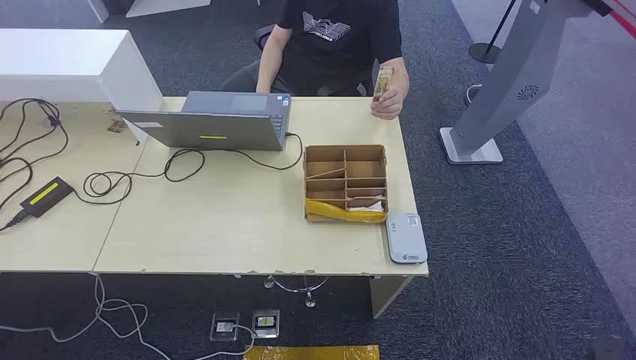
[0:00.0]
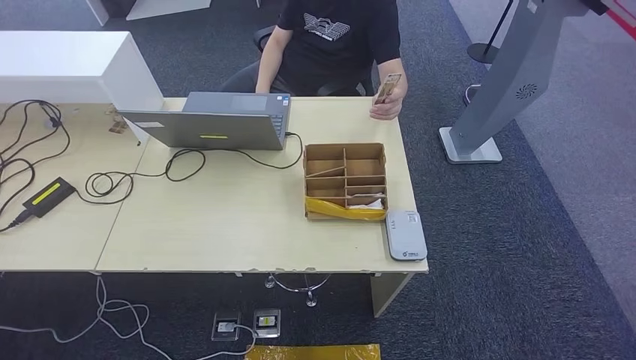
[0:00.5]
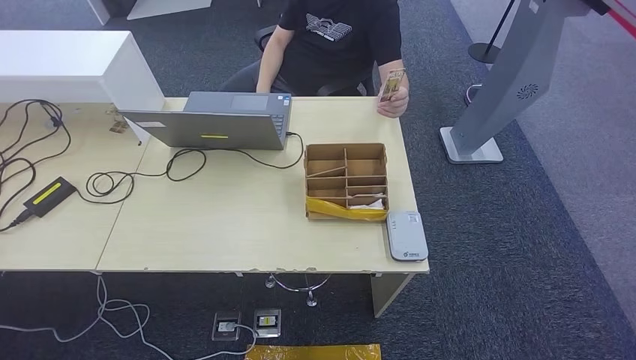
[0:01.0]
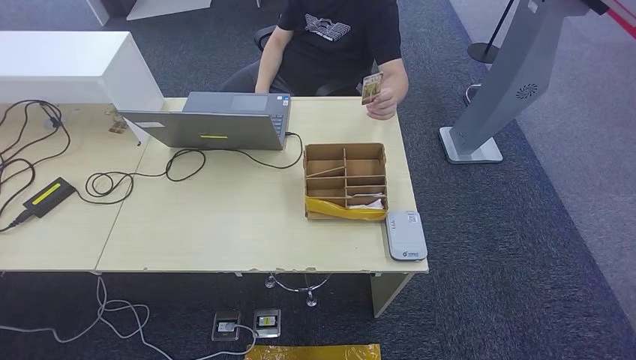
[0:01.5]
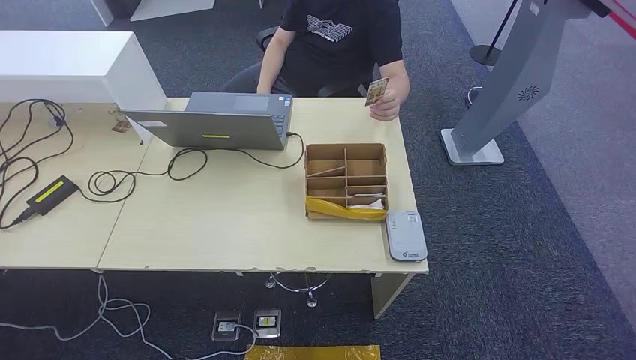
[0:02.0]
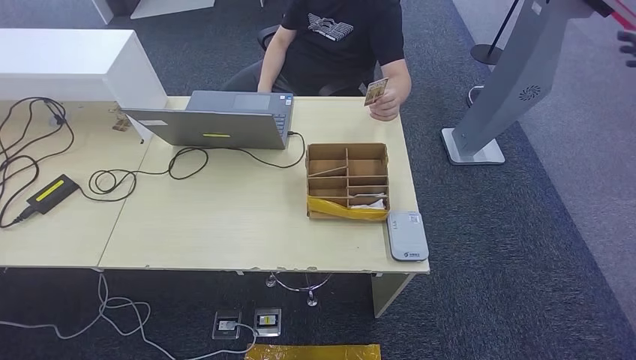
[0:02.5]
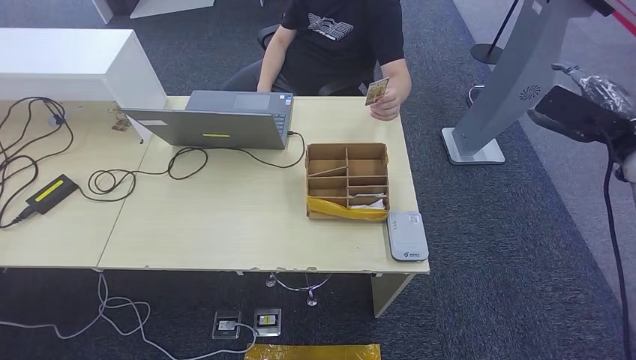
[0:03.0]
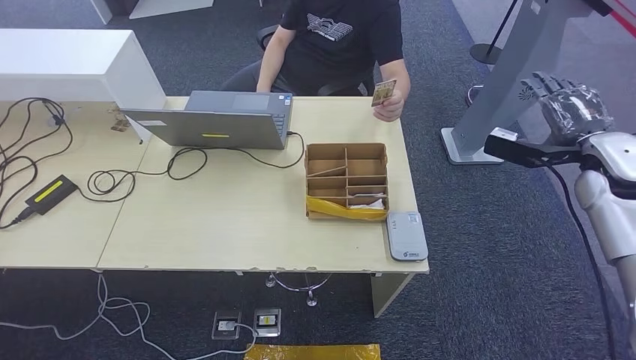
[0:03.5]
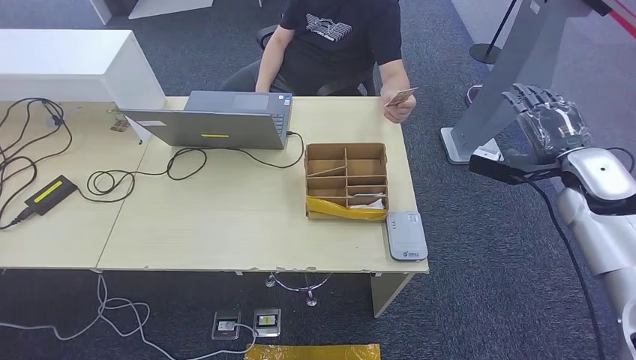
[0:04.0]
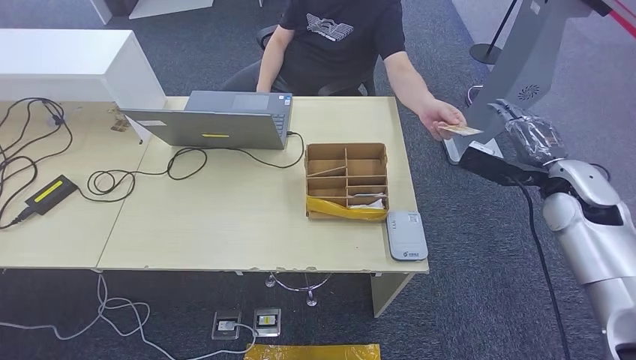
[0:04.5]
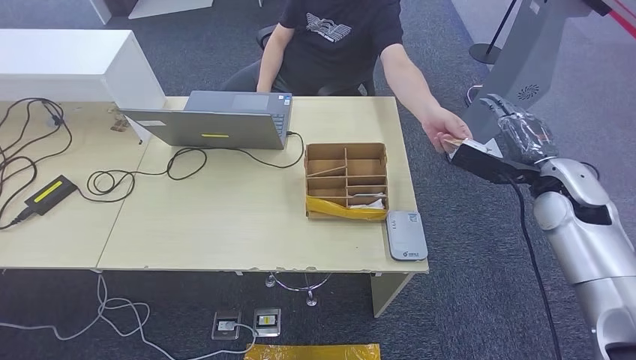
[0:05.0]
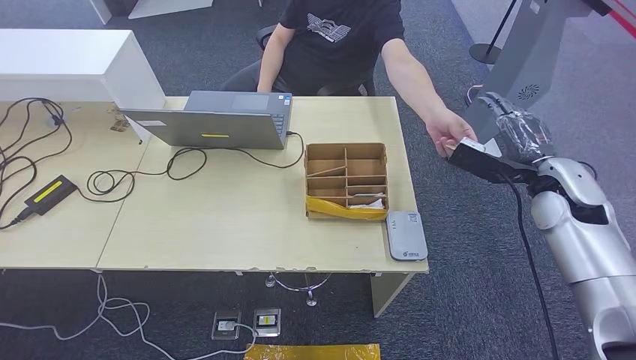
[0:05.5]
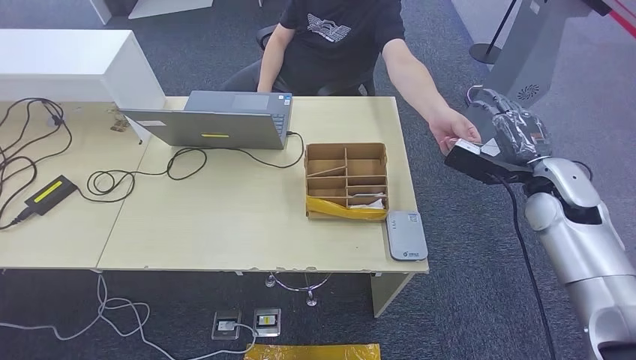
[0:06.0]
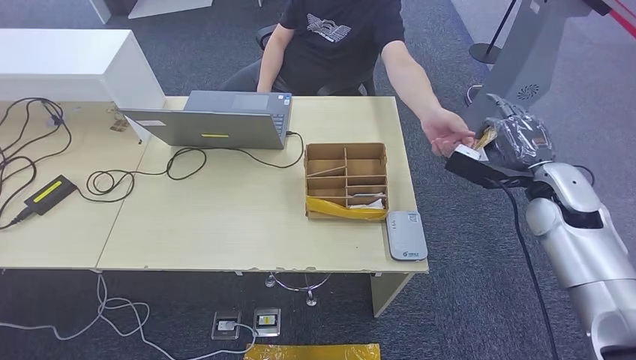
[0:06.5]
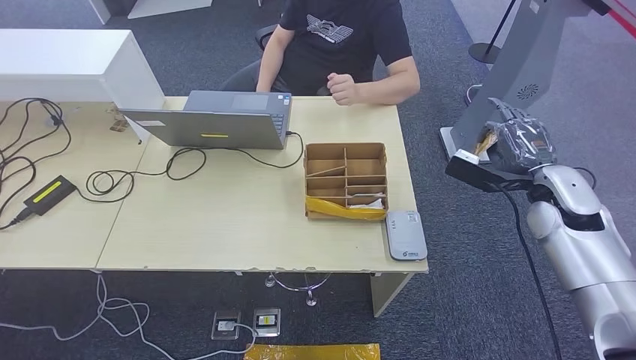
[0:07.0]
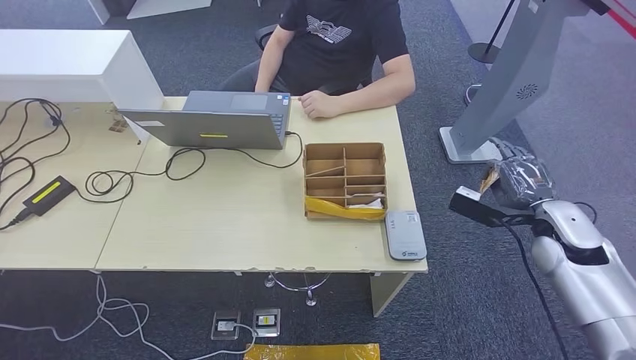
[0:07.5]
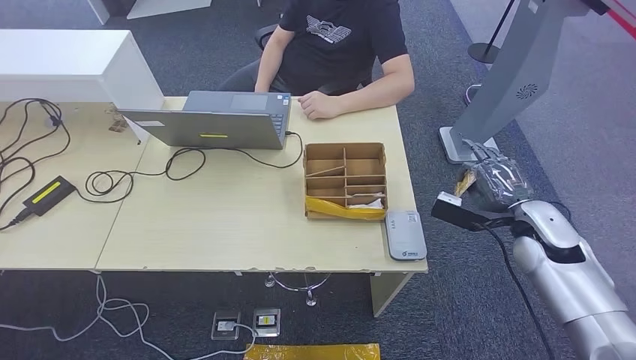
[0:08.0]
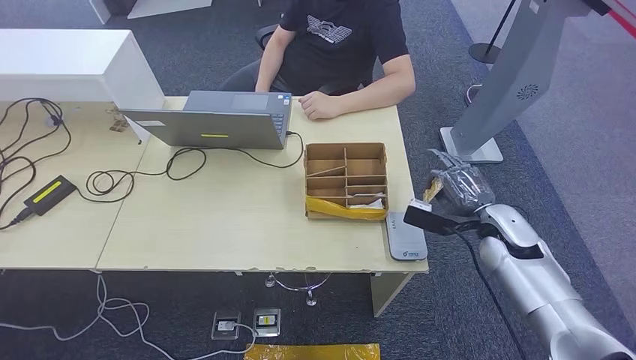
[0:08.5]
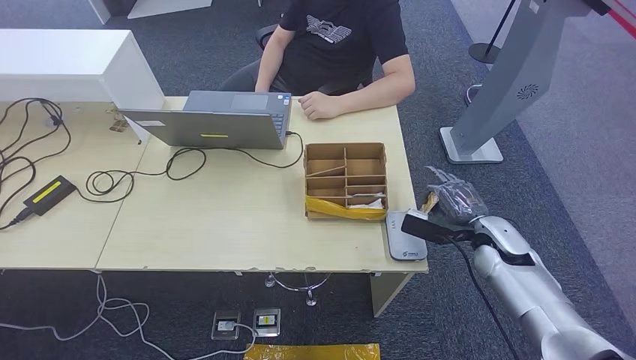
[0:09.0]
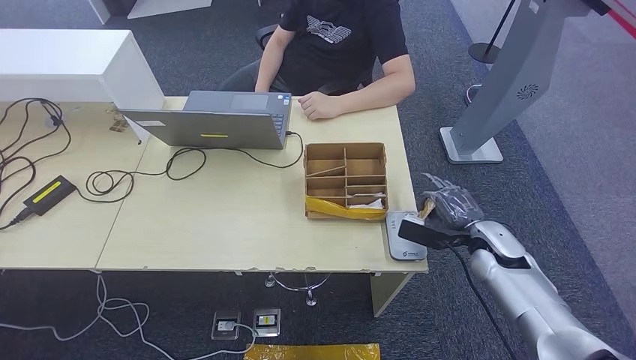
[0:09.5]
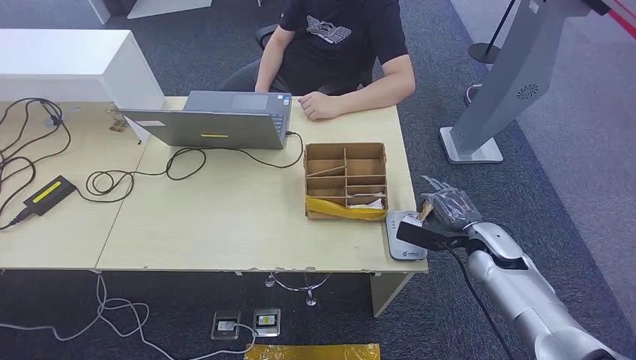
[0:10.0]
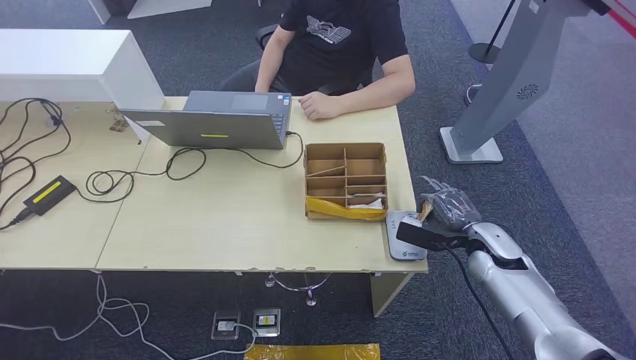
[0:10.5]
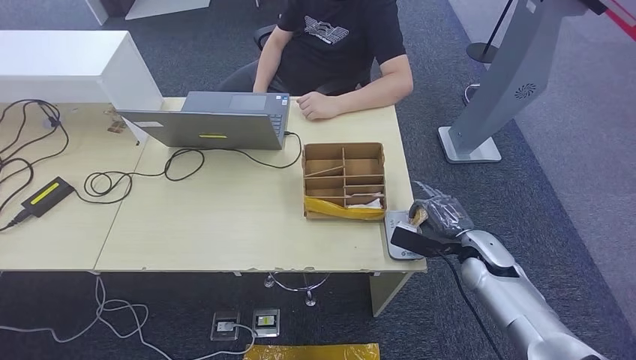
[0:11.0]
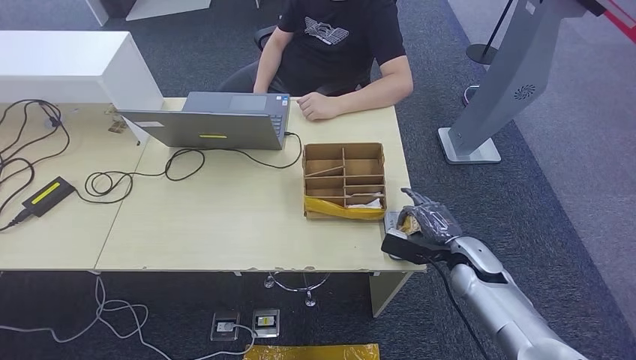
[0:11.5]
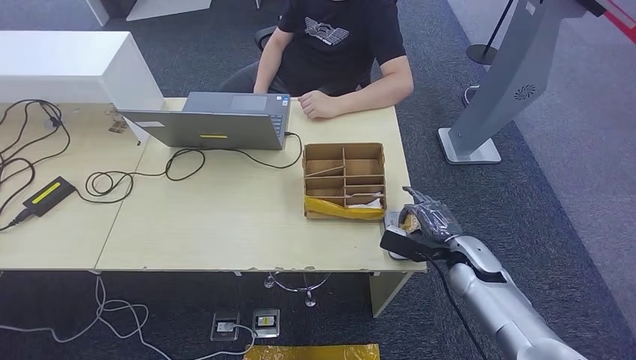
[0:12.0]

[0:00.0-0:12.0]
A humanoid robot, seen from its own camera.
Step, 0.0 to 7.5 s: Take the ID card from the person's hand.
Step, 8.5 to 10.5 s: Place the ID card on the card reader.
2.0 to 4.0 s: The right hand travels to the left and downward by approximately 20 cm.
4.0 to 6.0 s: The right hand moves to the left, roughly 5 cm.
6.0 to 8.0 s: The right hand travels downward by approximately 5 cm.
8.0 to 10.0 s: The right hand moves downward, roughly 5 cm.
10.0 to 12.0 s: There are only small adjustments of the hands.

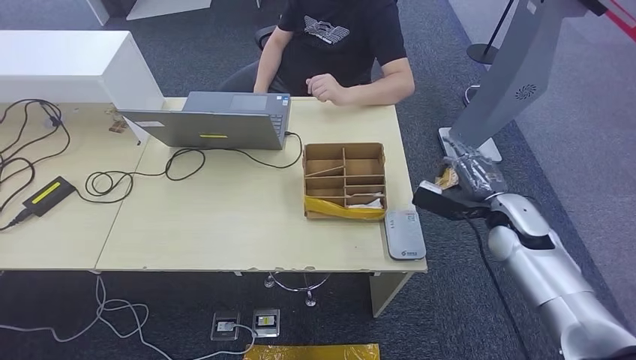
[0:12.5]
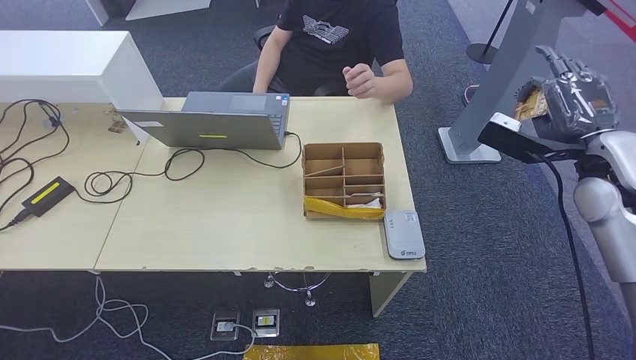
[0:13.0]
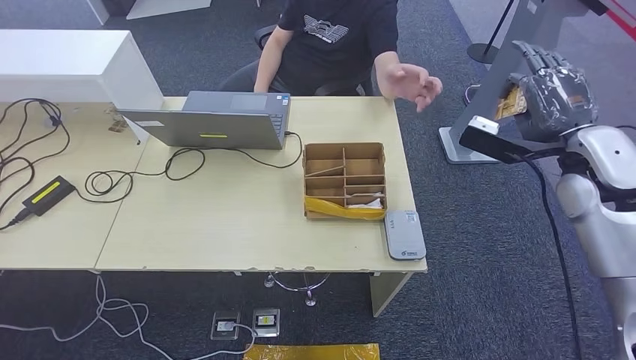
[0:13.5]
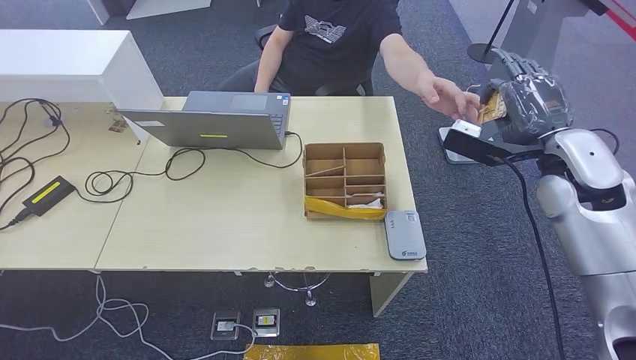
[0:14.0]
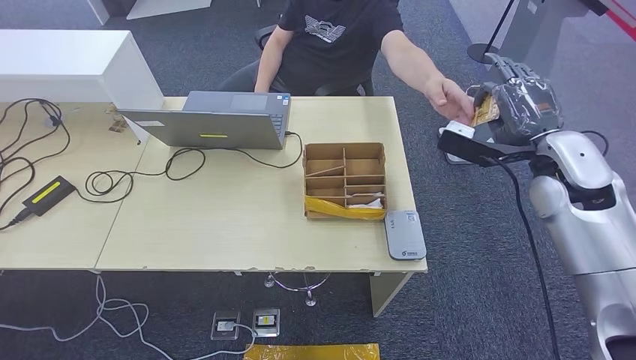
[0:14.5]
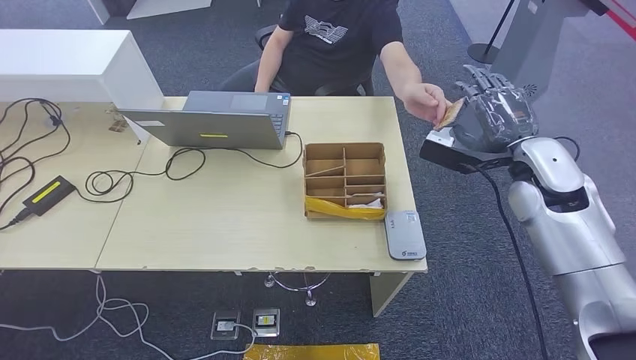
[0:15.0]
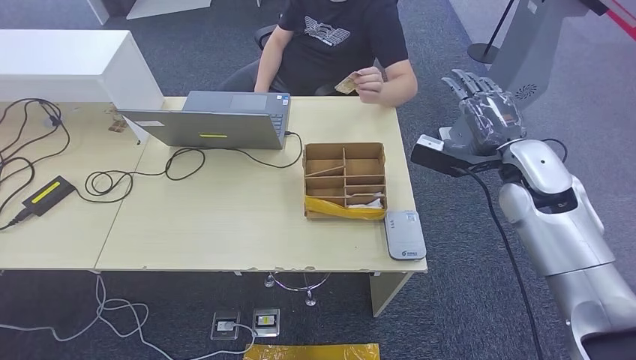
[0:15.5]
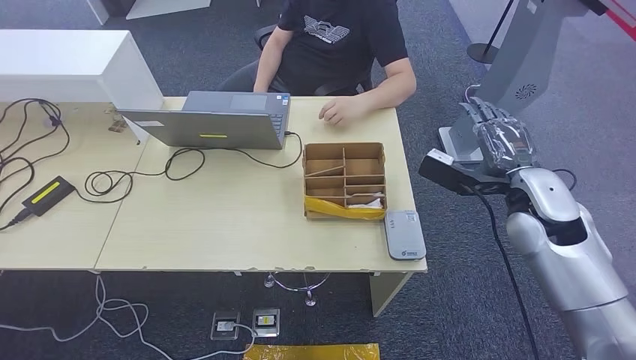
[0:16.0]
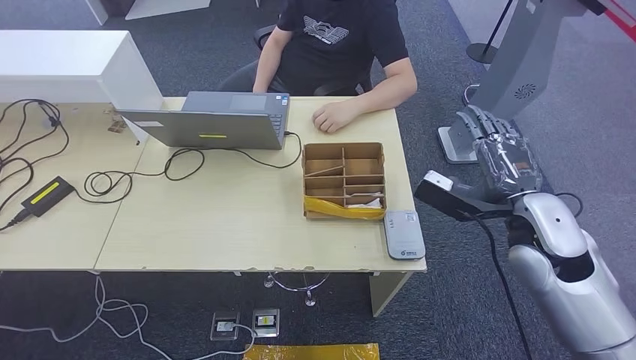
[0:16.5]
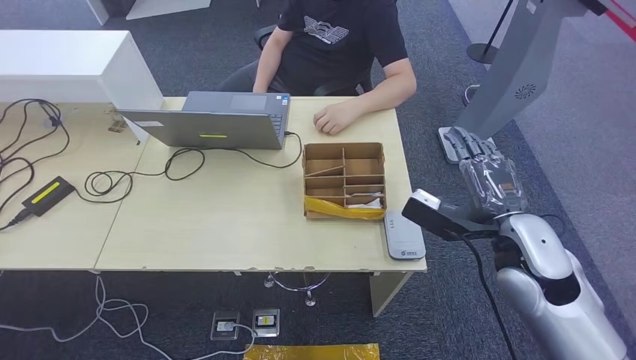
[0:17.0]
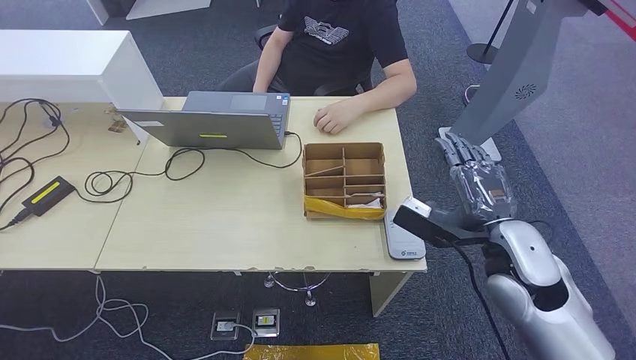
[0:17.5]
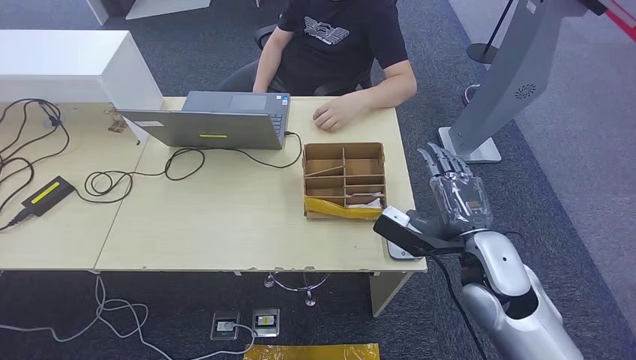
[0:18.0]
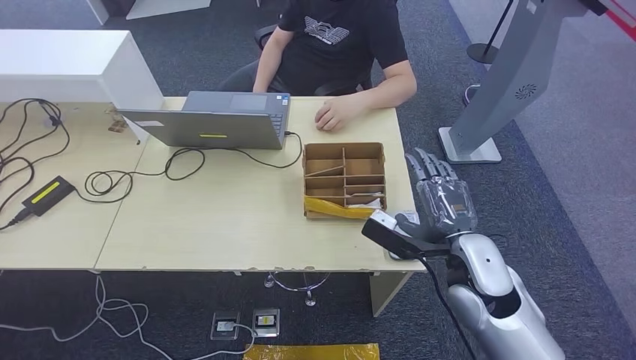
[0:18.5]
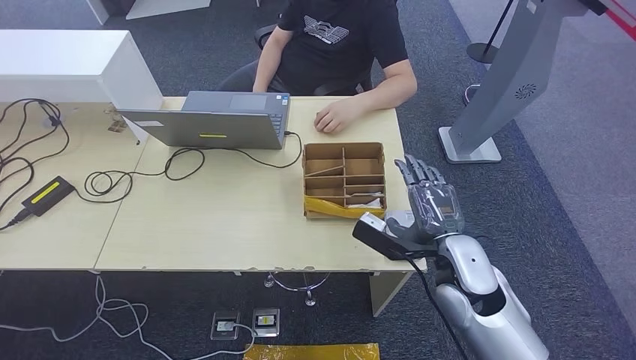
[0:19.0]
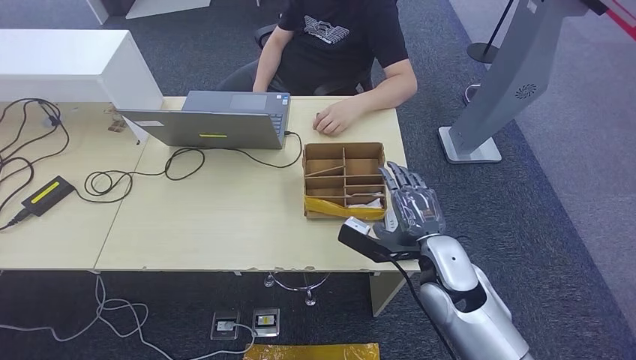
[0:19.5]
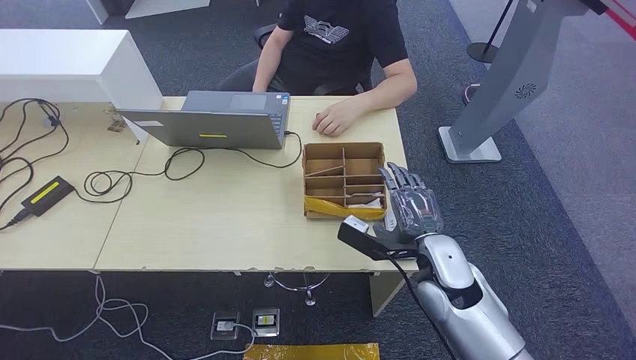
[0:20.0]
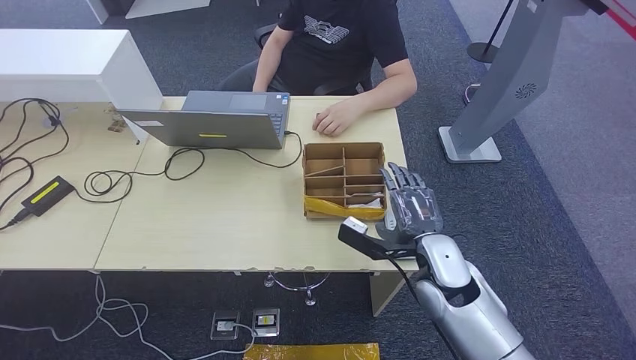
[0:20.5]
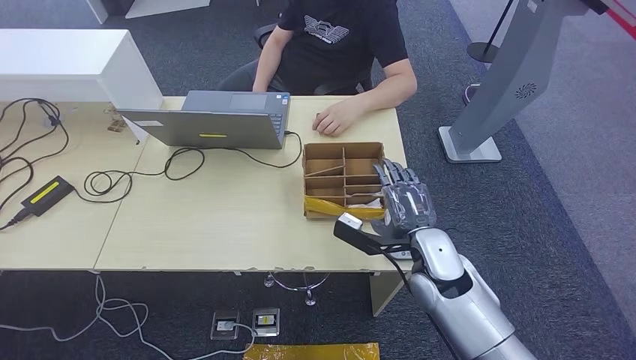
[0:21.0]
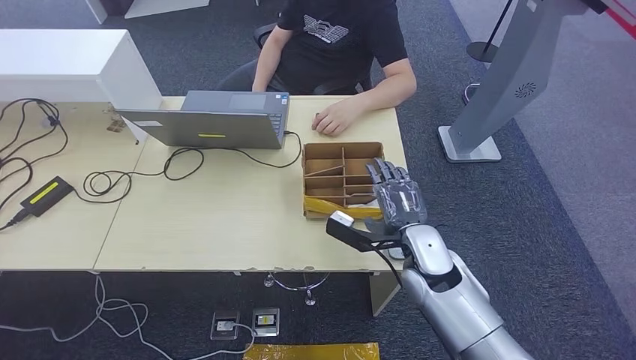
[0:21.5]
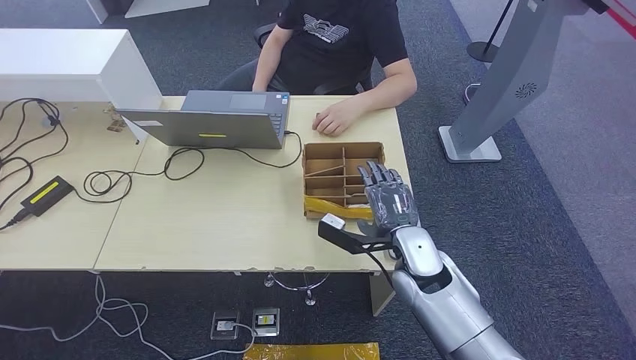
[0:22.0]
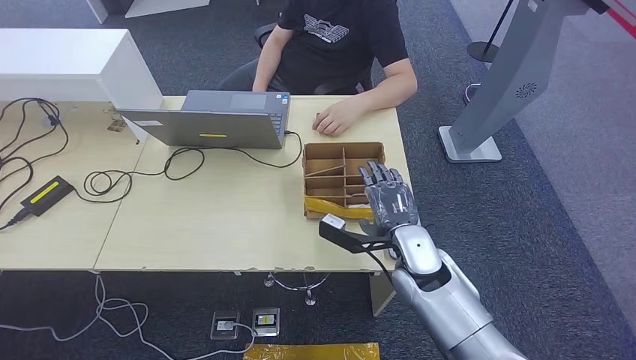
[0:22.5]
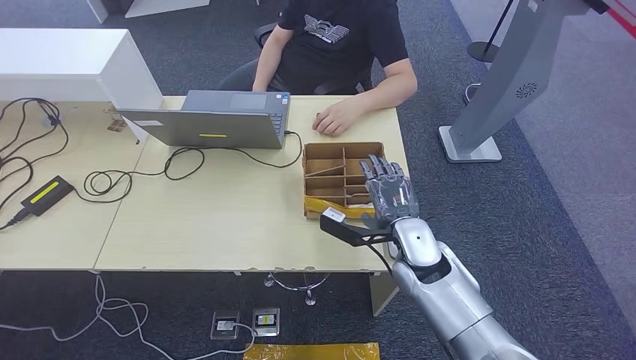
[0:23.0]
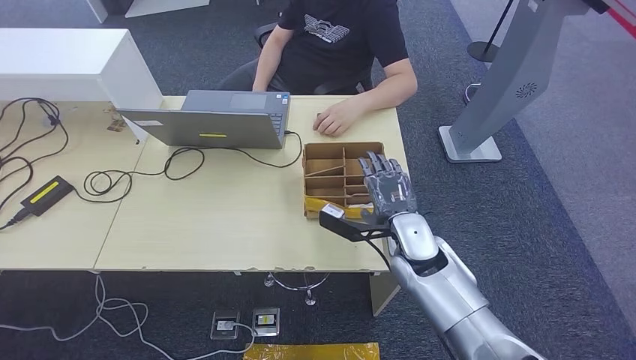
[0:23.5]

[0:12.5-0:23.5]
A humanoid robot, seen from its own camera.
Step, 12.5 to 15.0 s: Hand the ID card to the person.
12.5 to 14.5 s: The right hand heads upward, covering approximately 15 cm.
14.5 to 16.0 s: The right hand shifts by approximately 5 cm.
16.0 to 18.0 s: The right hand shifts roughly 15 cm backward, to the left and downward.
18.0 to 20.0 s: The right hand is displaced to the left by some 5 cm.
20.0 to 23.5 s: The hands make only small movements.
